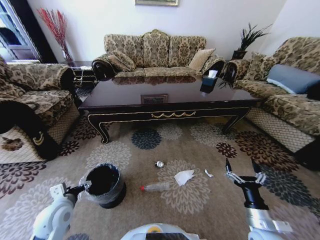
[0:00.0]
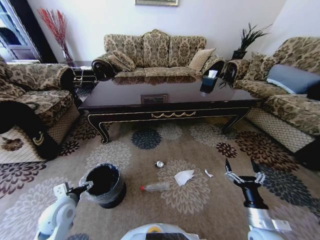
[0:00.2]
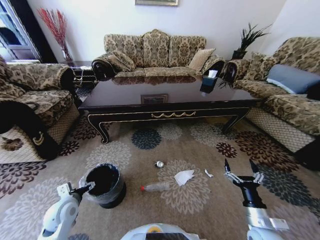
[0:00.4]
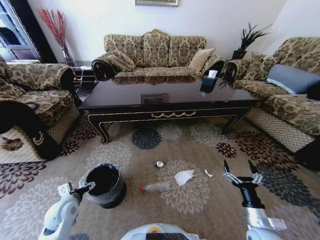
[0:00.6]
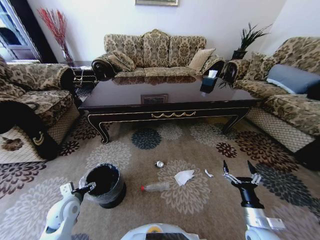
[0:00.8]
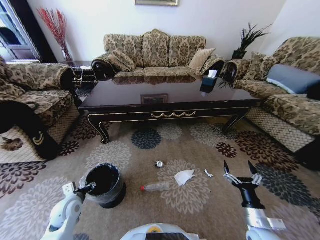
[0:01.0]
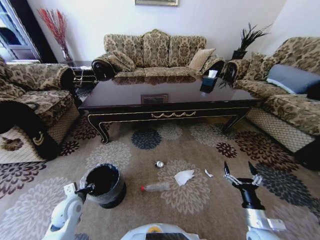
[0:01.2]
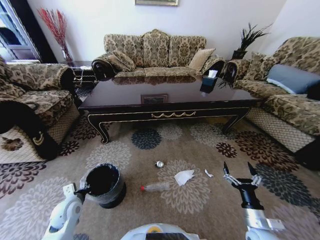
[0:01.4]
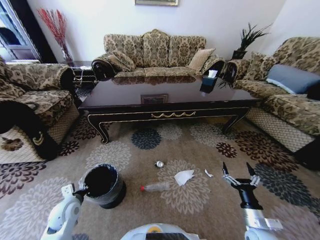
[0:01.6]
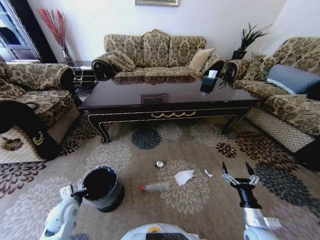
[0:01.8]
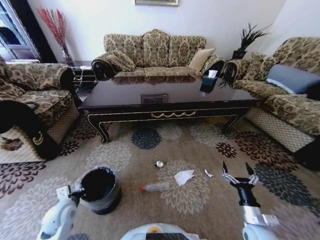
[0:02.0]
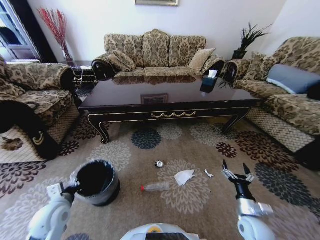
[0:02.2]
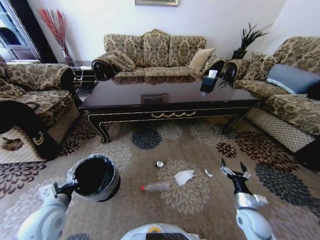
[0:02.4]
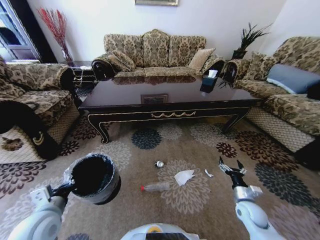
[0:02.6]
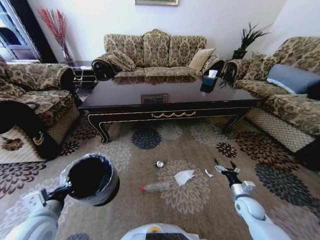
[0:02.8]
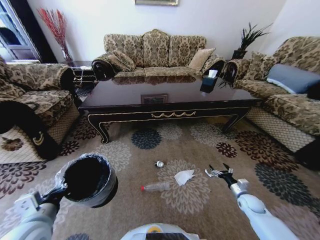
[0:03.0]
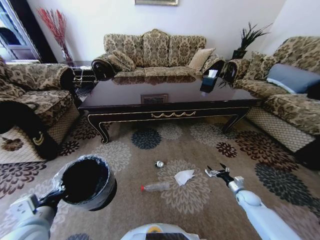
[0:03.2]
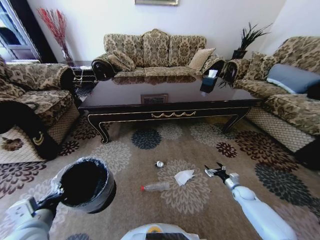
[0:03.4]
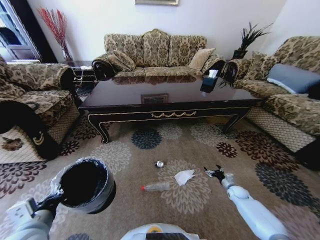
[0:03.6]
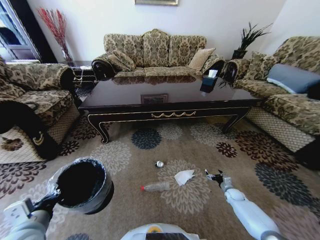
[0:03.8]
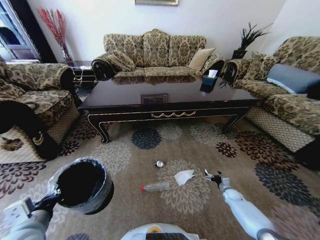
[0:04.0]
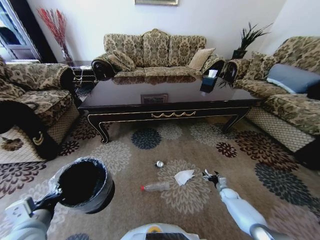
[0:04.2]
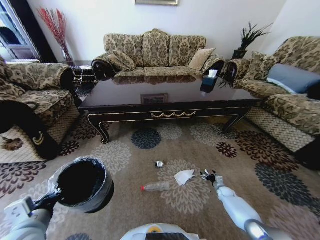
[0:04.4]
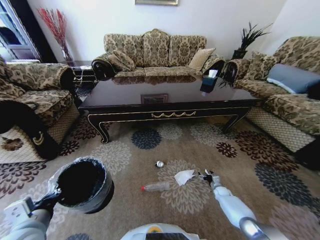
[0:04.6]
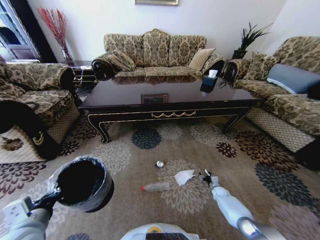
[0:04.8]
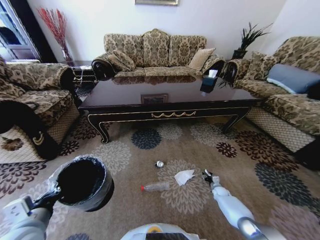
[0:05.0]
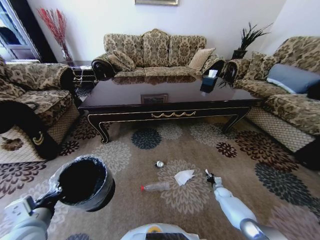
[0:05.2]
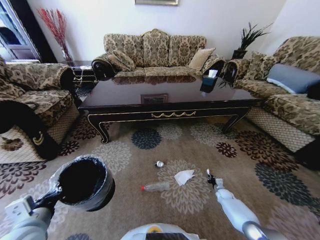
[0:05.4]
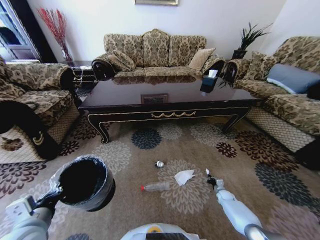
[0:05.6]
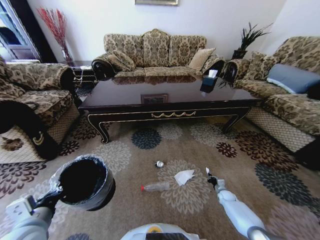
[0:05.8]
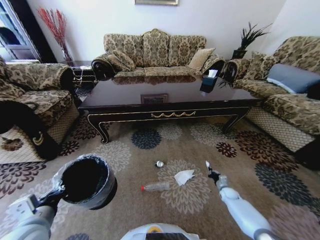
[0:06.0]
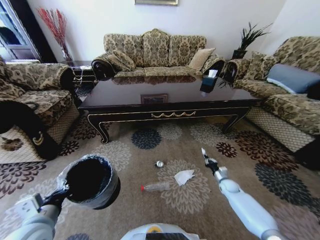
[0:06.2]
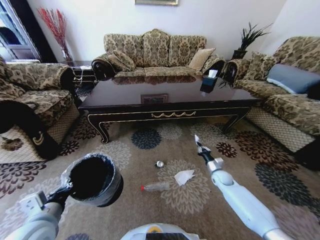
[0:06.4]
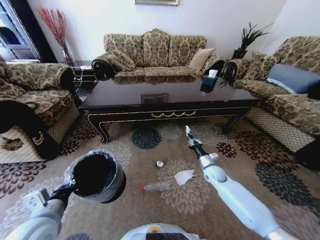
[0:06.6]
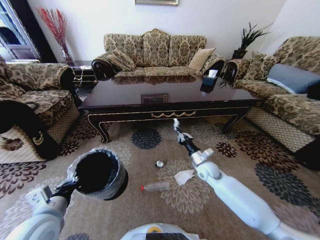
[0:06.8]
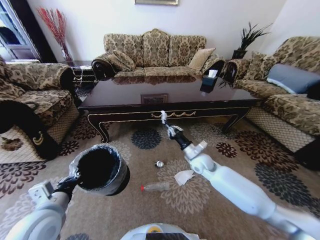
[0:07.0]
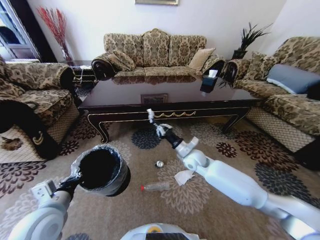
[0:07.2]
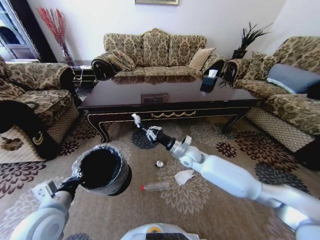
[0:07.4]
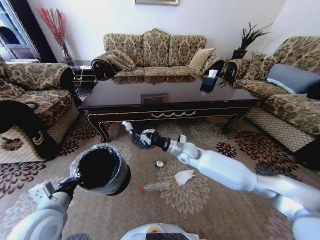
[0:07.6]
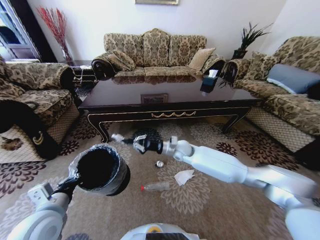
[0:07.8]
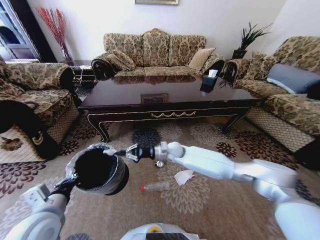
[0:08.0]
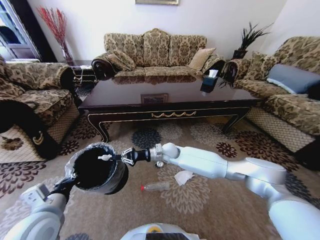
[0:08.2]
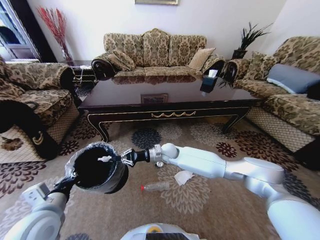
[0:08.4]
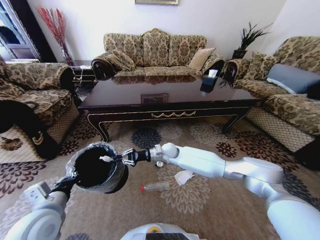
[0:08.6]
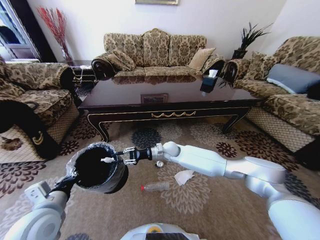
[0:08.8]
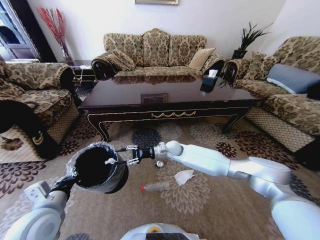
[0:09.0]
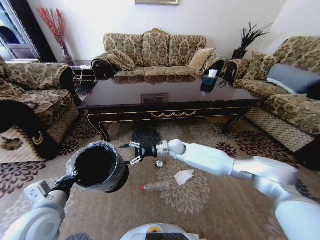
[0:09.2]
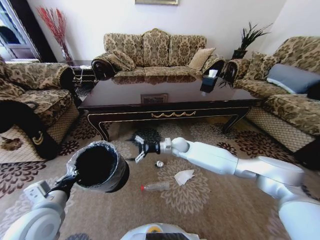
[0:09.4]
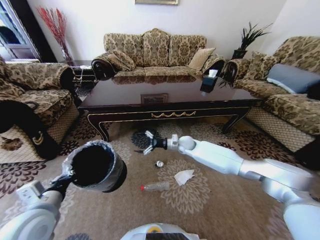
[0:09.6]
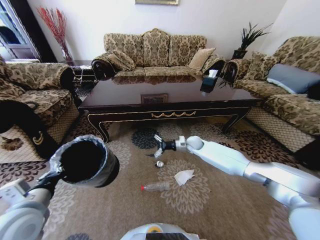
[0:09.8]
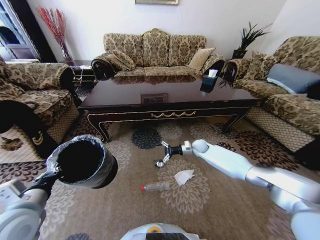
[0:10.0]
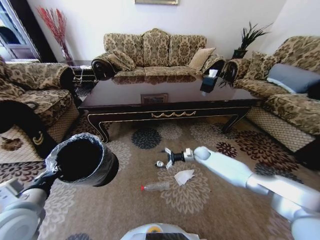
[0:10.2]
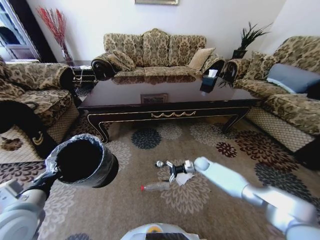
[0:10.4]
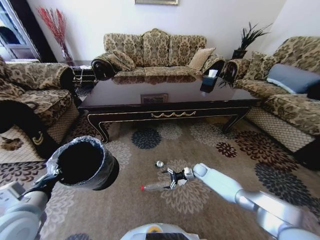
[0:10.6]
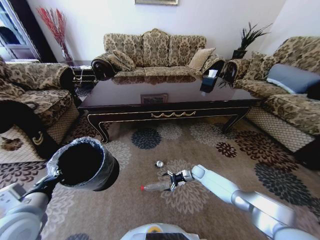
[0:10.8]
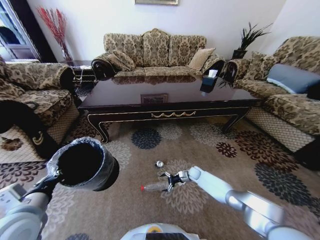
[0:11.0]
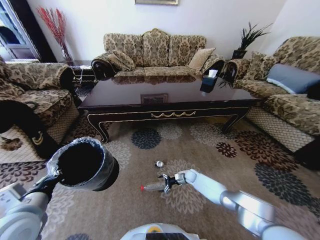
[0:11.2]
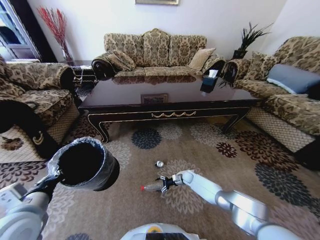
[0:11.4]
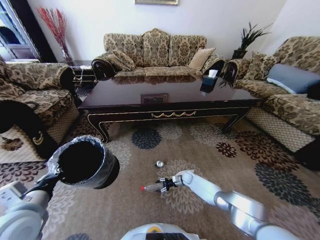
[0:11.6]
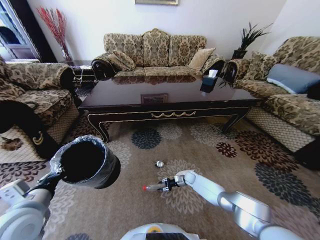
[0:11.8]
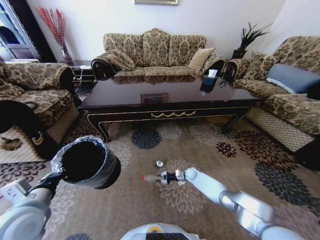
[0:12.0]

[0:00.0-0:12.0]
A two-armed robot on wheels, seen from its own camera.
Task of the whole recording: Move to the front of the table and pick up the trash from the floor, then place it into the trash bin.
0:00.0 to 0:01.6: The left gripper travels downward by roughly 5 cm, and closes.
0:01.6 to 0:03.0: The right gripper moves forward, to the right and downward, roughly 20 cm. Meanwhile the left gripper moves upward and backward, approximately 15 cm.
0:03.0 to 0:04.4: The right gripper travels downward and forward by about 15 cm.
0:04.4 to 0:06.0: The right gripper closes.
0:06.0 to 0:07.6: The right gripper heads to the left and upward, covering roughly 40 cm.
0:07.6 to 0:09.0: The right gripper is displaced to the left by about 5 cm, and opens.
0:09.0 to 0:10.4: The right gripper heads to the right and downward, covering some 25 cm, and opens.
0:10.4 to 0:12.0: The right gripper shifts roughly 10 cm downward, and closes up.

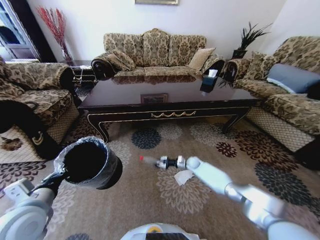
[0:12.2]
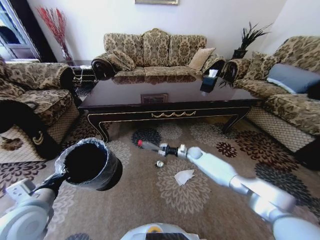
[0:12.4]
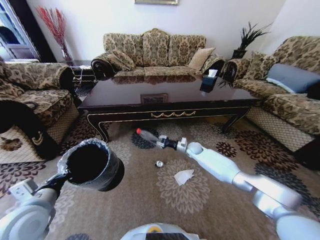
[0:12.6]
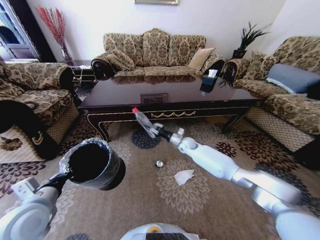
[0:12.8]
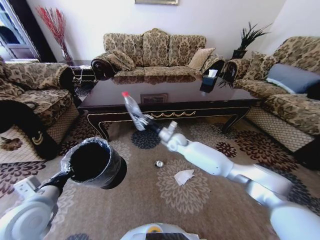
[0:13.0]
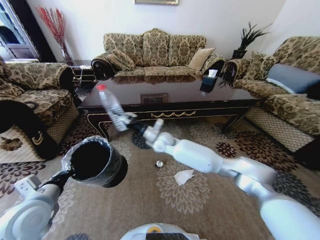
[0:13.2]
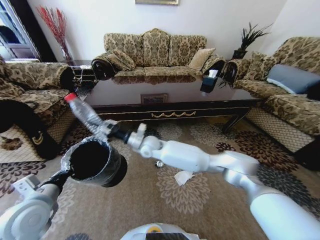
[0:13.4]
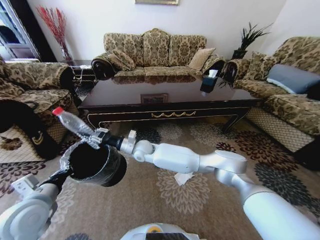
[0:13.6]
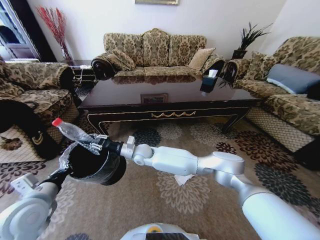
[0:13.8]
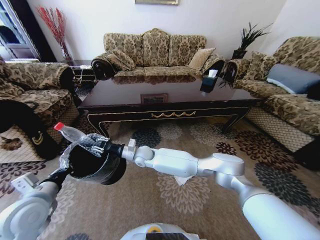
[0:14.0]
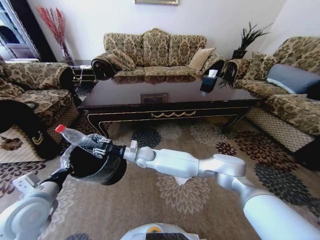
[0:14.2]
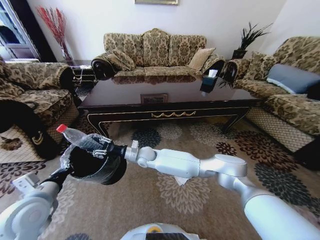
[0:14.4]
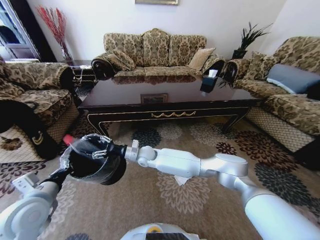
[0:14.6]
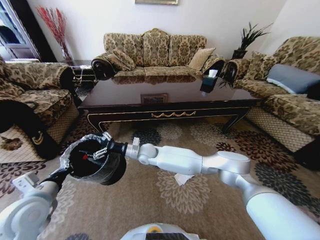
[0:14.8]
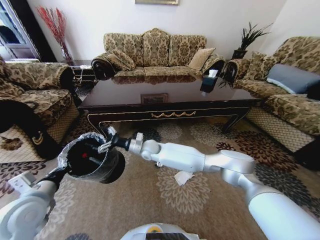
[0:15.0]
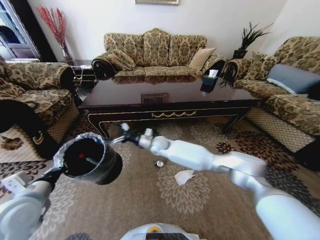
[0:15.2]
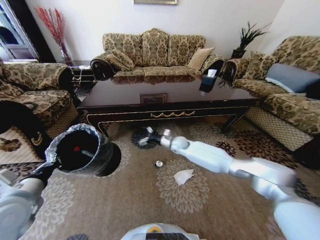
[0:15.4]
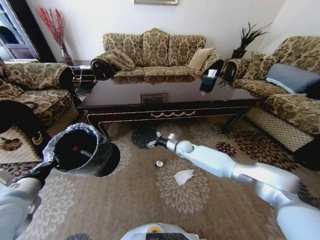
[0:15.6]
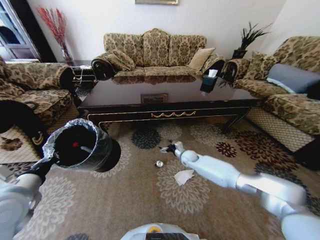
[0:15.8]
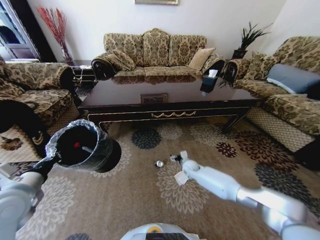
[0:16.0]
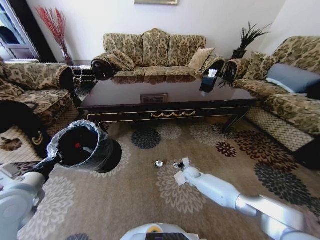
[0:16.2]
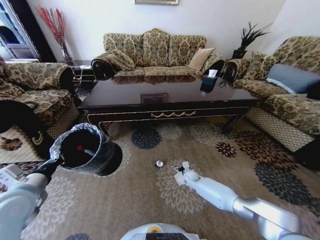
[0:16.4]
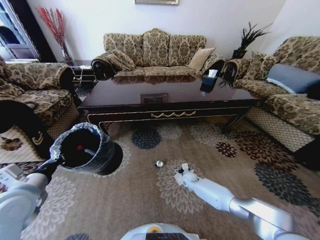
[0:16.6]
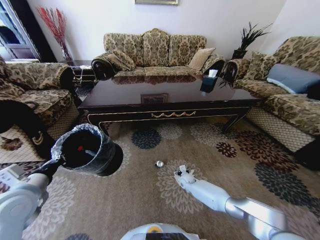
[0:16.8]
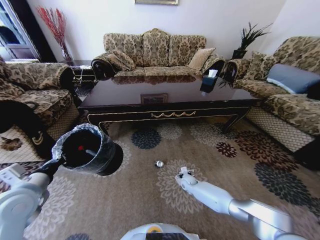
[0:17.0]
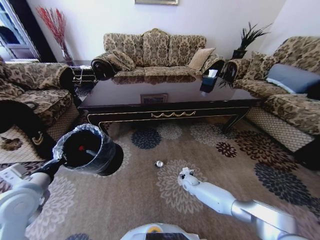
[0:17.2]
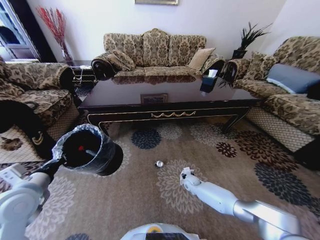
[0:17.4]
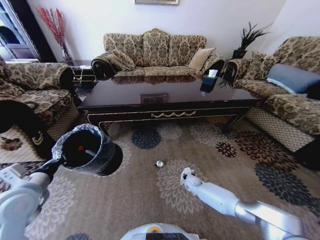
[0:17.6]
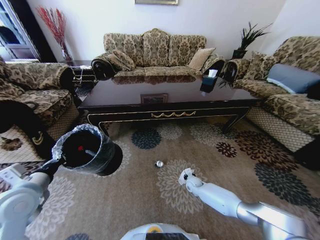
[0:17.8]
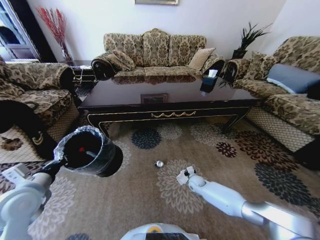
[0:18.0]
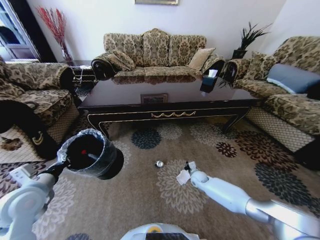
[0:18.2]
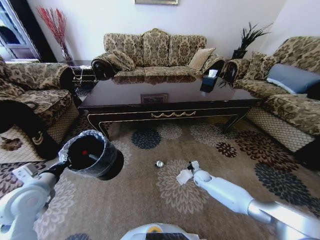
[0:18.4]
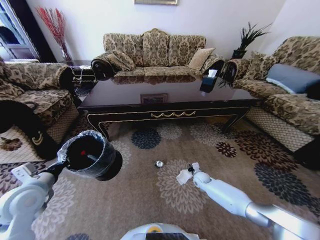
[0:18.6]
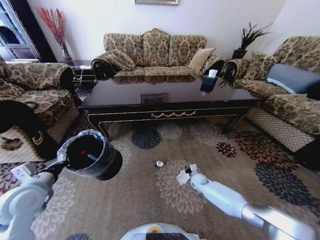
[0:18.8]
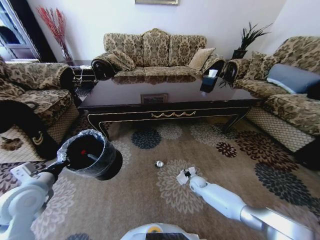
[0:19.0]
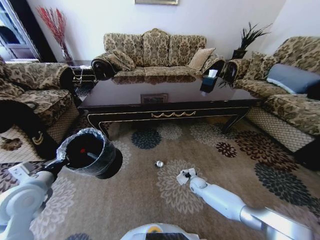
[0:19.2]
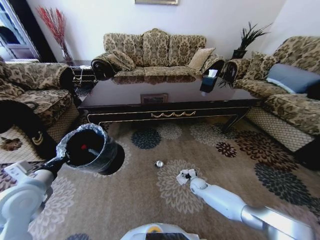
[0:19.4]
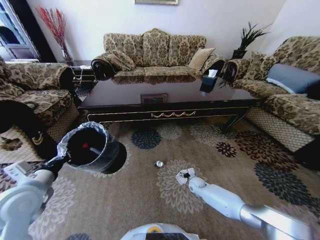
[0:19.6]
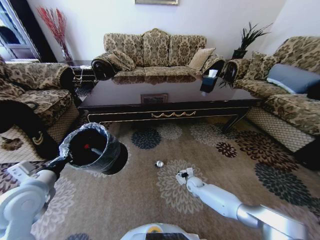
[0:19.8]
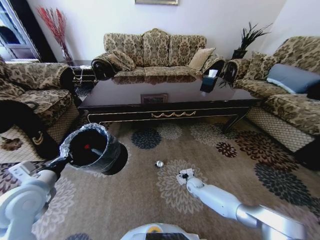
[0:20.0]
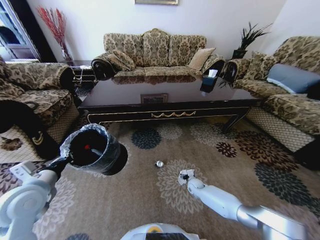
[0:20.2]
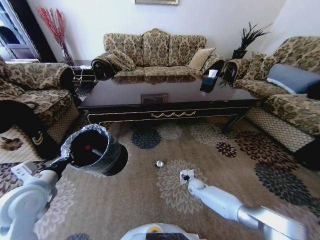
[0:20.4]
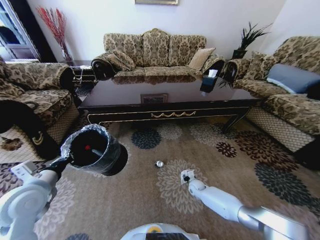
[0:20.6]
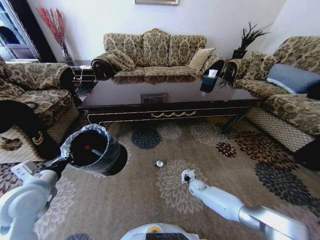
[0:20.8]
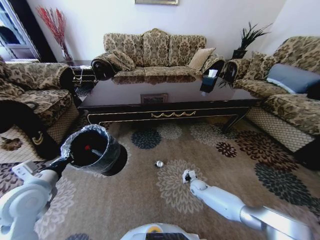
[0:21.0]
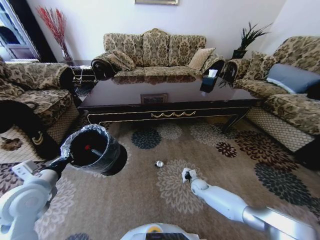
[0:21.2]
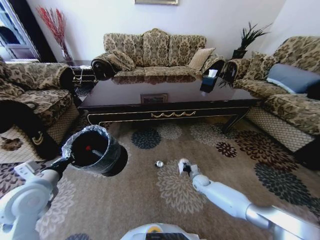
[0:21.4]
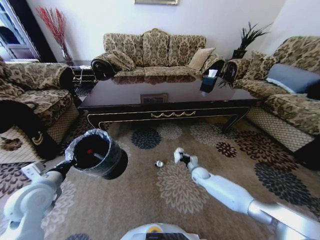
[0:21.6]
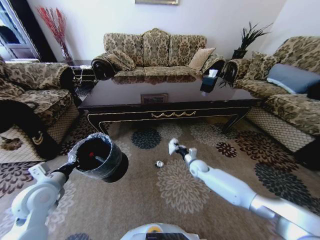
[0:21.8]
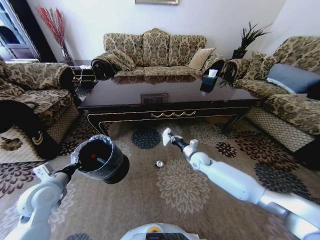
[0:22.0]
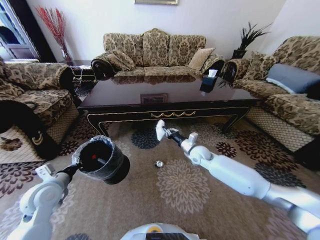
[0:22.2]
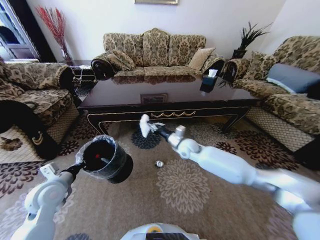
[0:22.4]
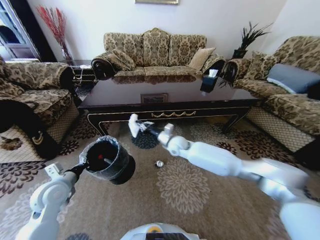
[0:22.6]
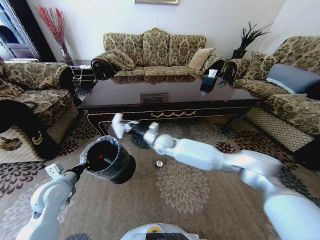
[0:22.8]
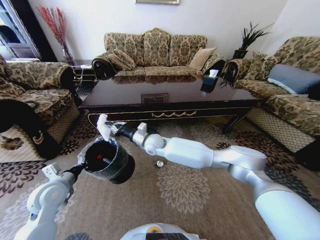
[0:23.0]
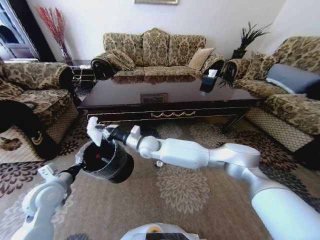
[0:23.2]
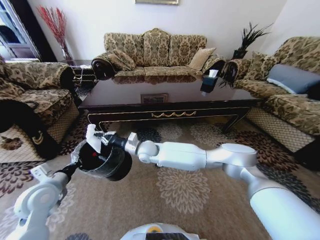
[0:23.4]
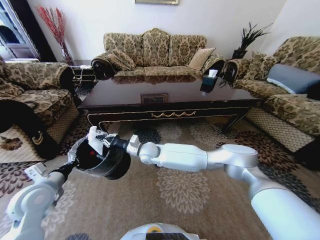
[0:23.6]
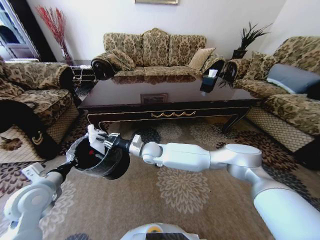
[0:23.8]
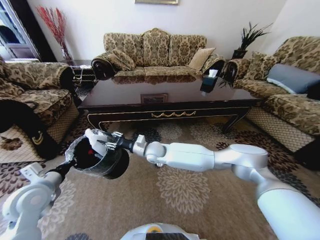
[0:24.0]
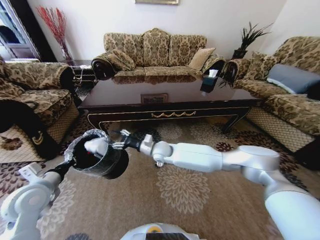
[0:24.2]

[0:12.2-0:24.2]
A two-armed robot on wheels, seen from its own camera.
Task of the whole recording: Move to the front of the table and pick up the trash from the floor, then place it into the trash bin.
0:12.2 to 0:13.8: The right gripper heads to the left and upward, covering about 40 cm.
0:13.8 to 0:15.2: The right gripper shifts roughly 10 cm to the right and forward, and opens.
0:15.2 to 0:16.6: The right gripper goes approximately 35 cm downward and to the right.
0:16.6 to 0:18.2: The right gripper changes place by some 5 cm, and closes up.
0:18.2 to 0:19.8: The right gripper opens.
0:19.8 to 0:21.2: The right gripper closes up.
0:21.2 to 0:22.6: The left gripper shifts about 5 cm downward, while the right gripper travels upward and to the left by roughly 35 cm.
0:22.6 to 0:24.2: The left gripper moves approximately 5 cm, while the right gripper goes approximately 5 cm to the left, and opens up.
